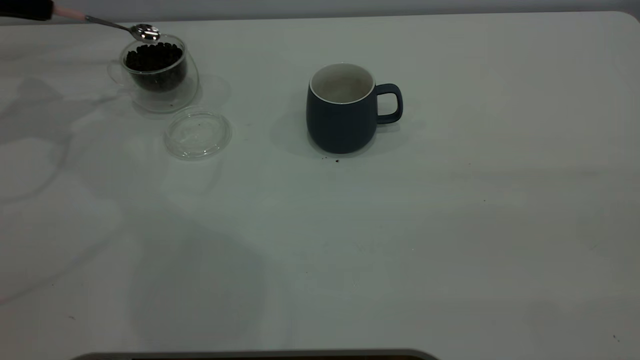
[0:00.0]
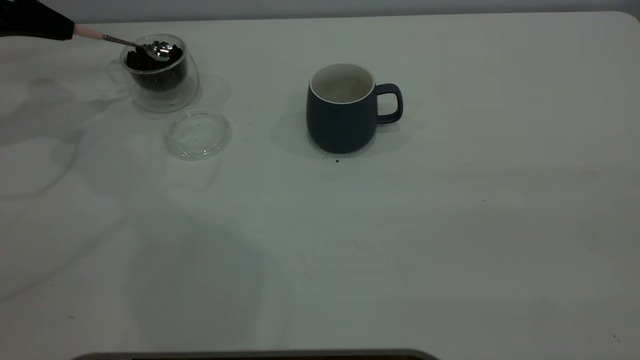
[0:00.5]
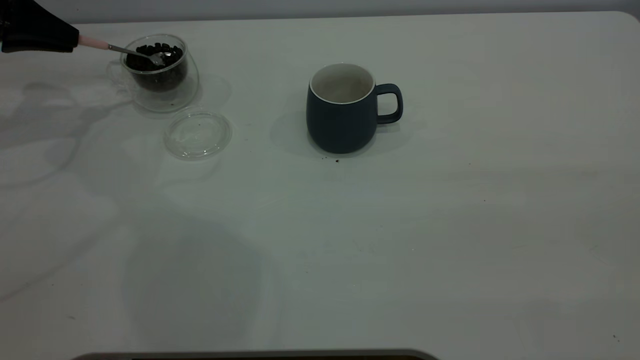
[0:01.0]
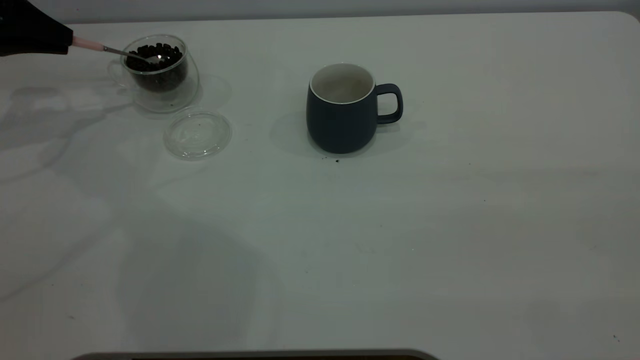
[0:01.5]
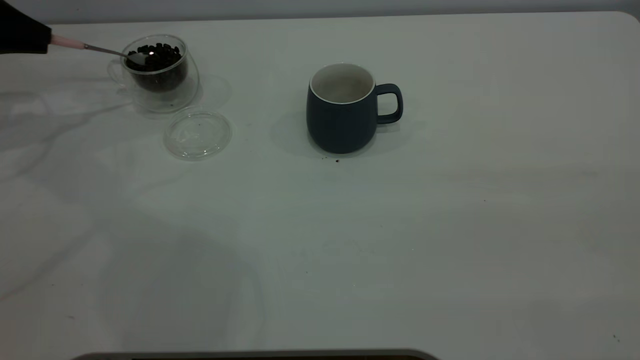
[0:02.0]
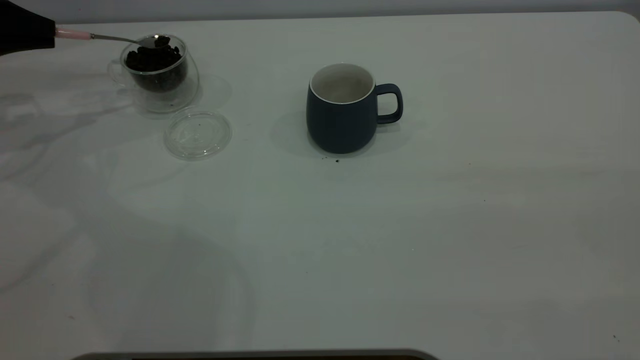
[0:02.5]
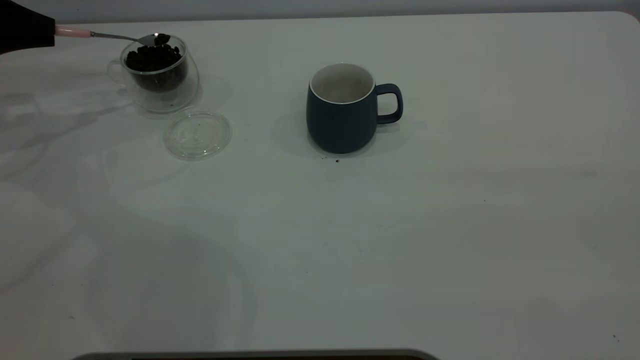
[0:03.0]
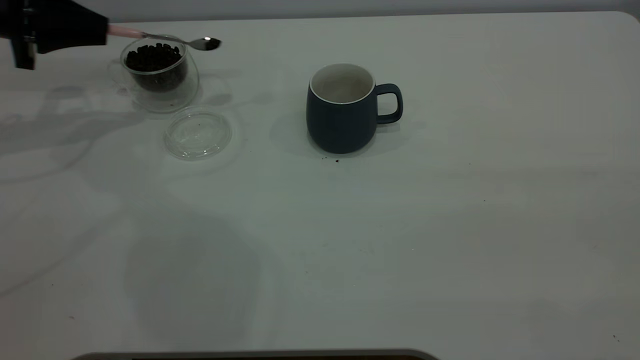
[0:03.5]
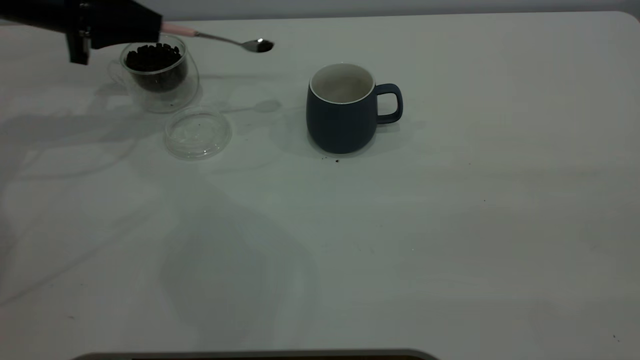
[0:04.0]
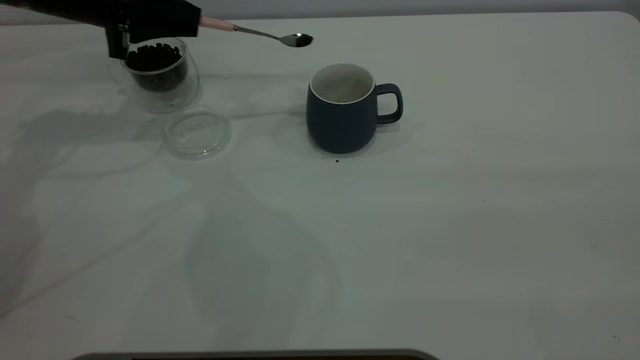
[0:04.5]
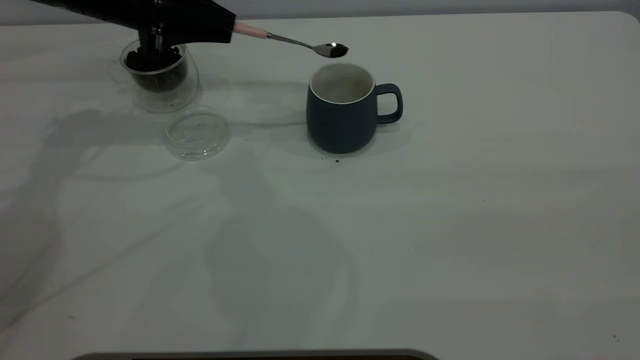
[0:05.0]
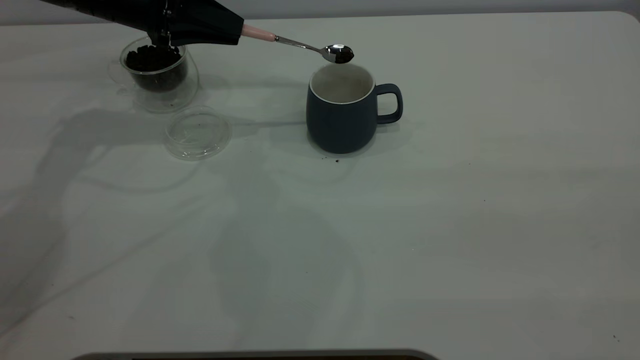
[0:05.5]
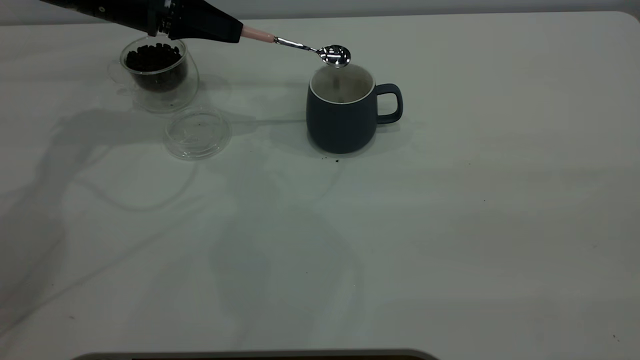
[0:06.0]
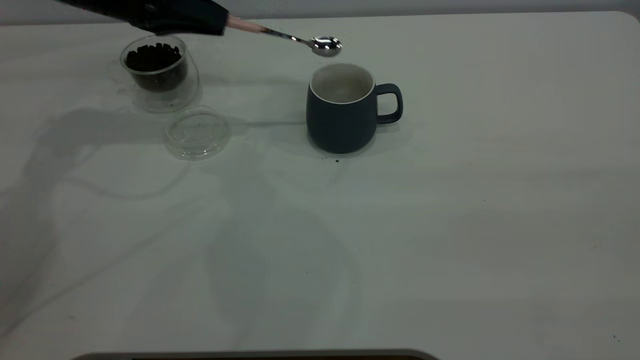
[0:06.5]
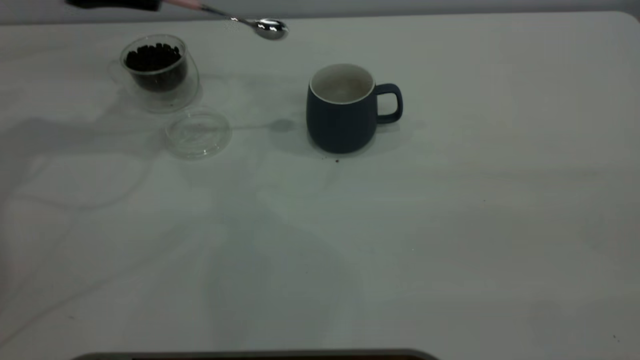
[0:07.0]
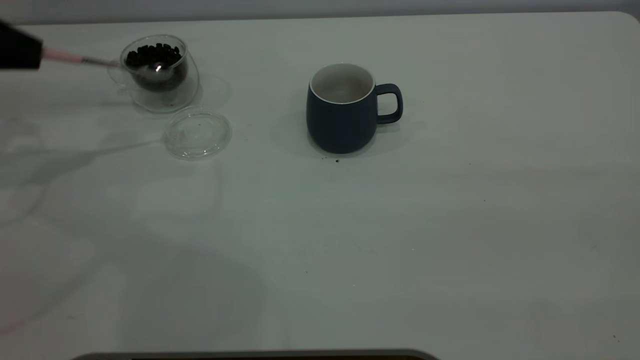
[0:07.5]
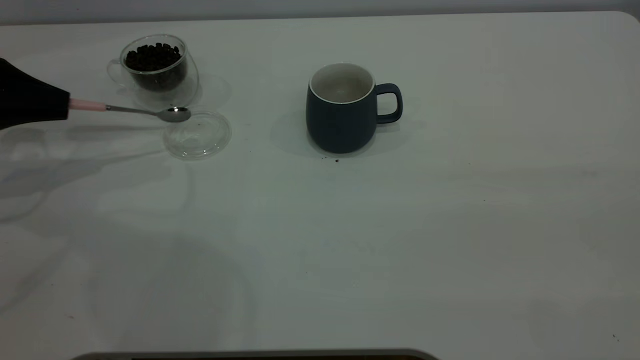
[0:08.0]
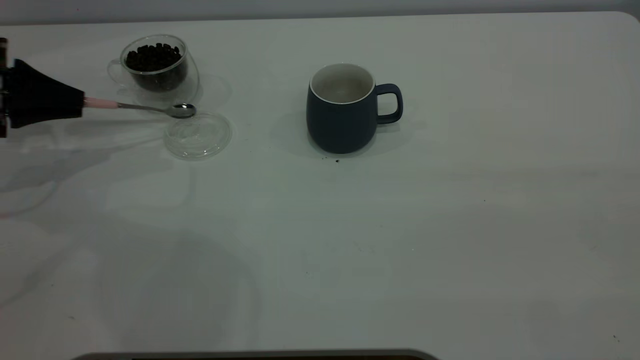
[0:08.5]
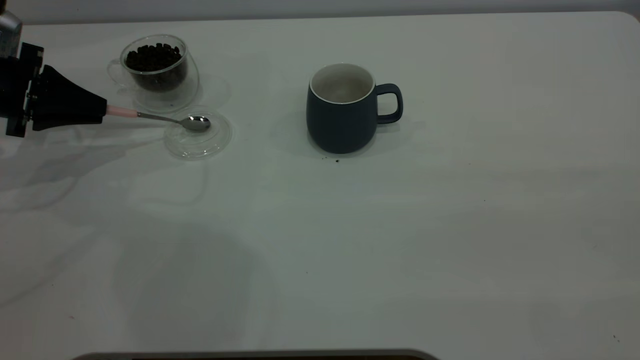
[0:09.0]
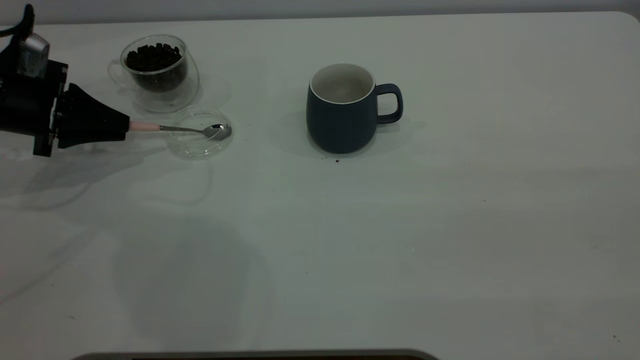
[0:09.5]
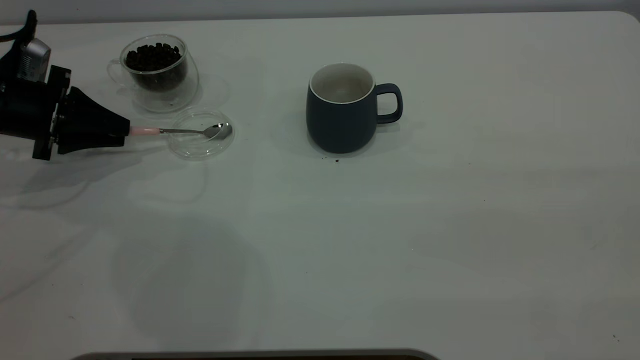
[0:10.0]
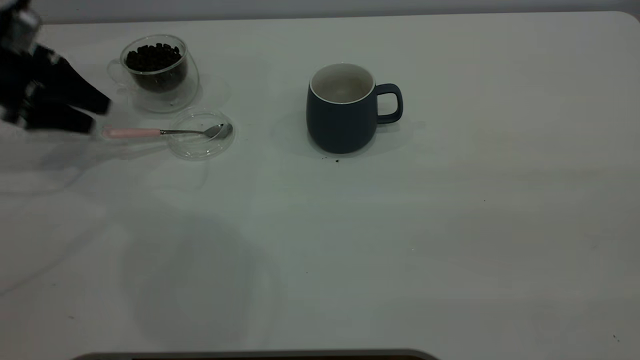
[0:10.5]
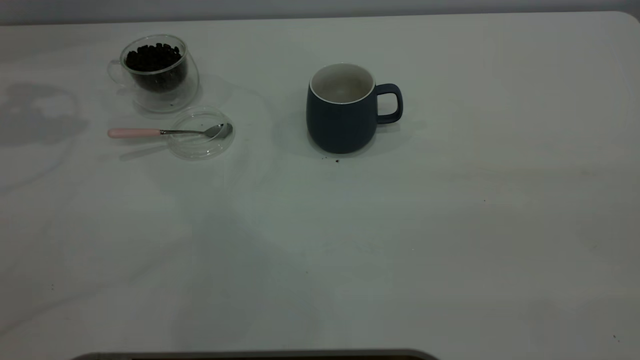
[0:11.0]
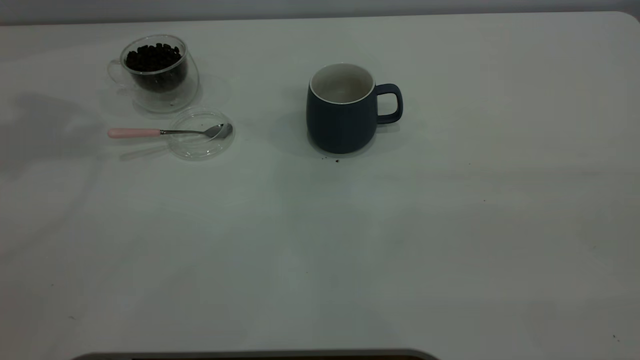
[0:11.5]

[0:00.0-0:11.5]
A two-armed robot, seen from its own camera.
Task of the whole recording: the right gripper place the grey cup in the center of the table, the left gripper take the pink spoon from the cup lid and scoop out the coffee beans from the coffee cup and put them into the grey cup, the left gripper put the spoon back into the cup lid.
Step, 0:00.0 to 0:06.0: Scoop a spoonful of beans into the cup.
Step, 0:06.5 to 0:10.5: Place the spoon back in its original place.
0:02.0 to 0:04.0: The left gripper moves to the right, about 15 cm.
0:04.0 to 0:06.0: The left gripper is displaced to the right by about 10 cm.
0:06.0 to 0:07.5: The left gripper shifts approximately 20 cm to the left and backward.
0:07.5 to 0:09.5: The left gripper shifts approximately 10 cm downward and to the right.
0:09.5 to 0:11.5: The left gripper goes roughly 40 cm upward, and opens up.
